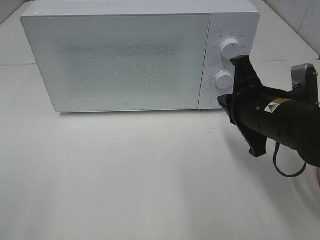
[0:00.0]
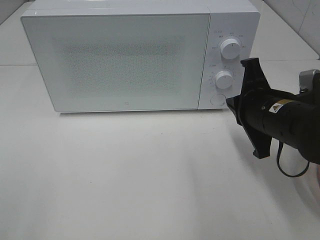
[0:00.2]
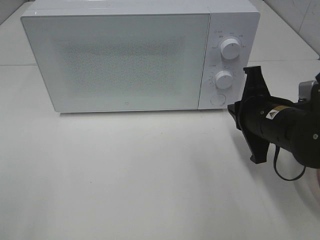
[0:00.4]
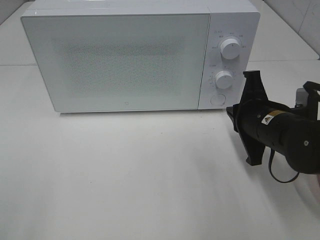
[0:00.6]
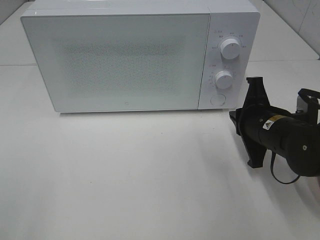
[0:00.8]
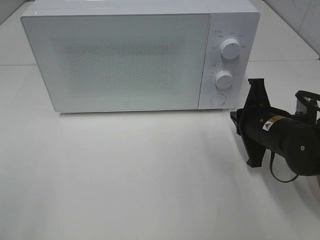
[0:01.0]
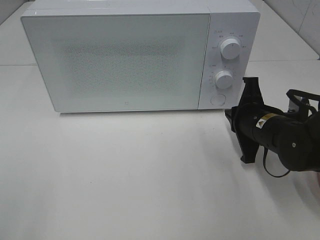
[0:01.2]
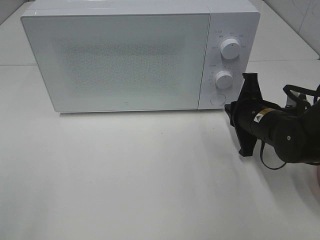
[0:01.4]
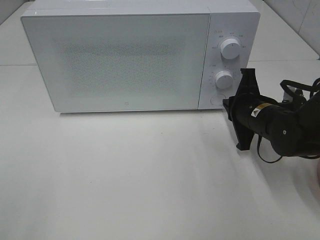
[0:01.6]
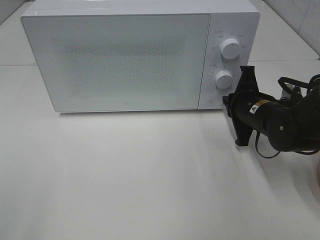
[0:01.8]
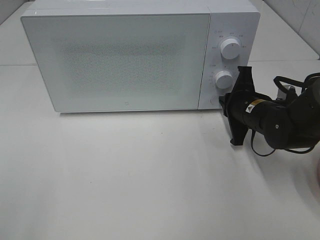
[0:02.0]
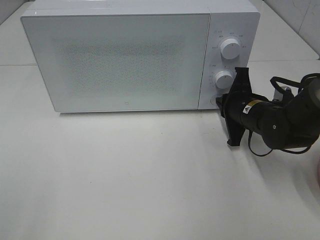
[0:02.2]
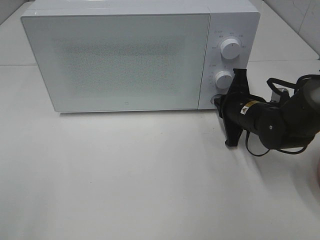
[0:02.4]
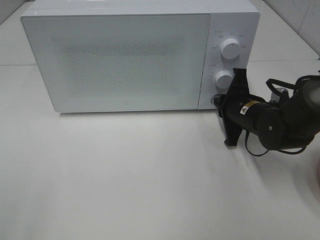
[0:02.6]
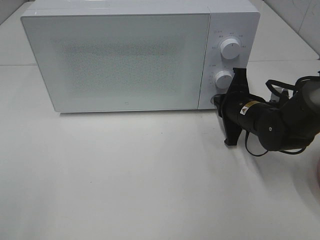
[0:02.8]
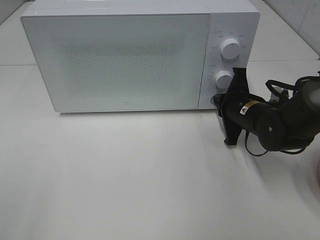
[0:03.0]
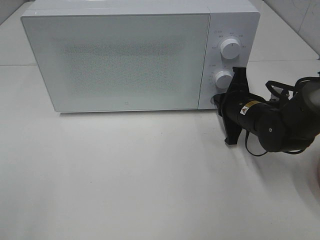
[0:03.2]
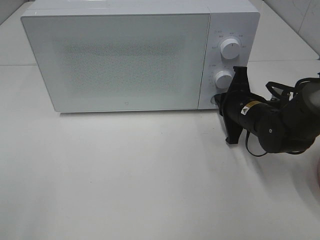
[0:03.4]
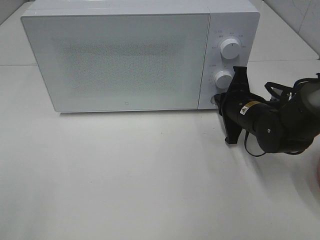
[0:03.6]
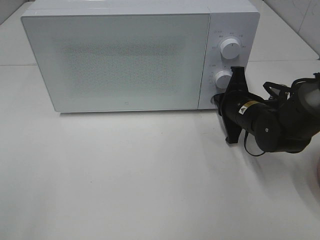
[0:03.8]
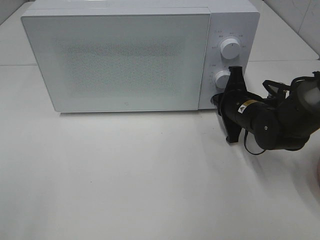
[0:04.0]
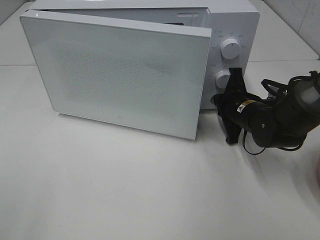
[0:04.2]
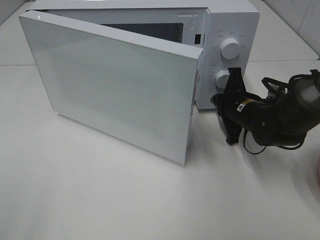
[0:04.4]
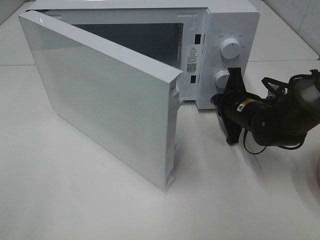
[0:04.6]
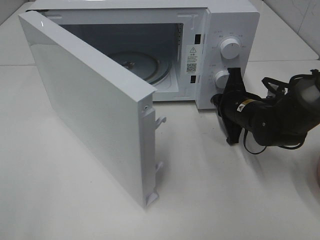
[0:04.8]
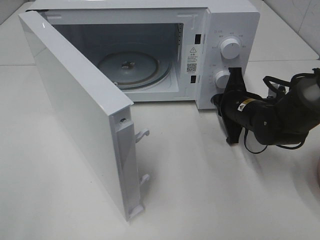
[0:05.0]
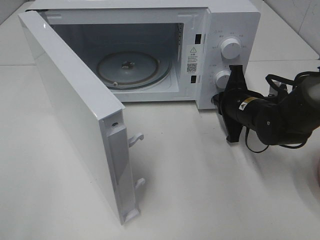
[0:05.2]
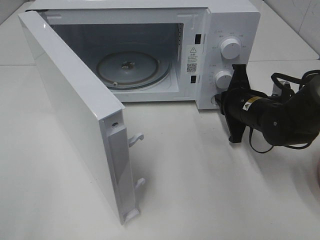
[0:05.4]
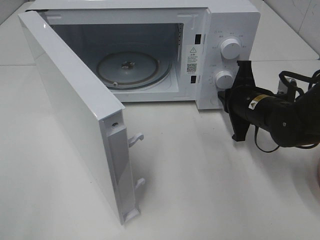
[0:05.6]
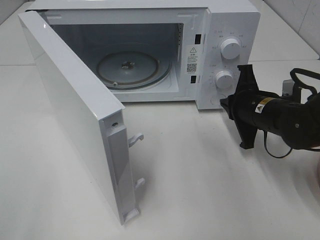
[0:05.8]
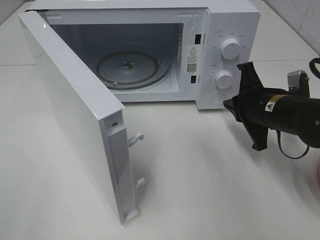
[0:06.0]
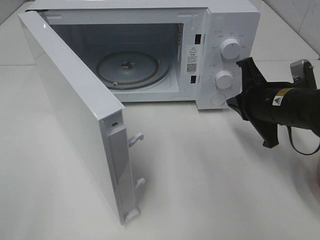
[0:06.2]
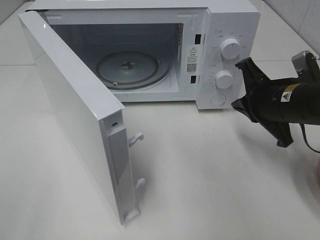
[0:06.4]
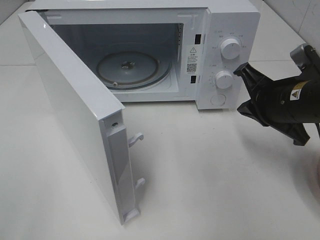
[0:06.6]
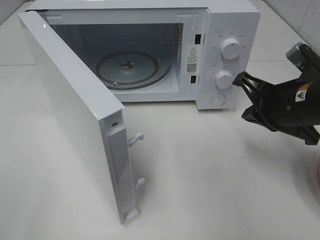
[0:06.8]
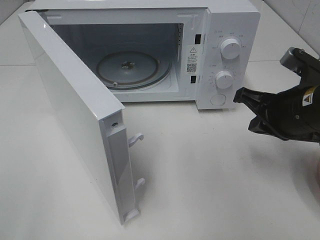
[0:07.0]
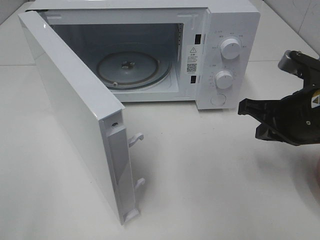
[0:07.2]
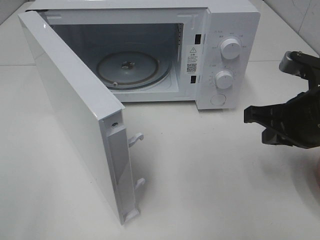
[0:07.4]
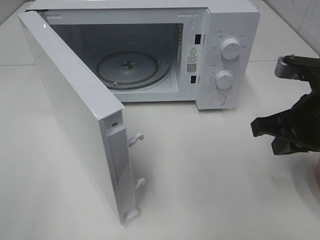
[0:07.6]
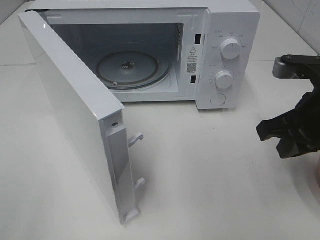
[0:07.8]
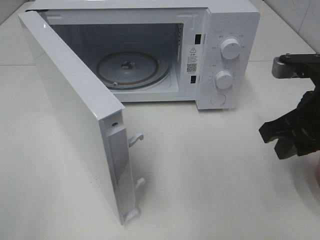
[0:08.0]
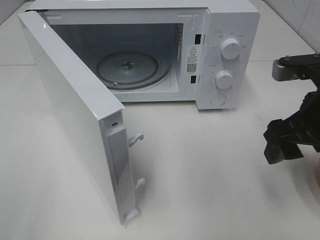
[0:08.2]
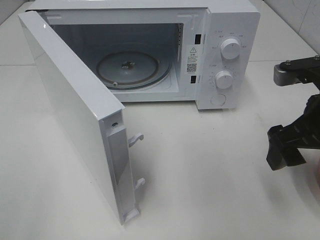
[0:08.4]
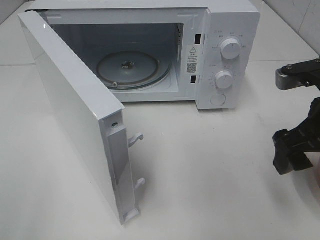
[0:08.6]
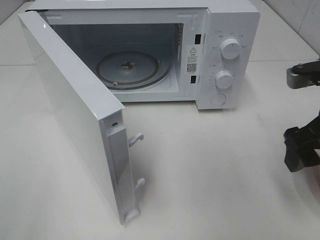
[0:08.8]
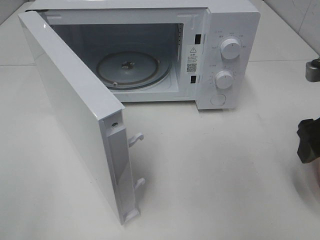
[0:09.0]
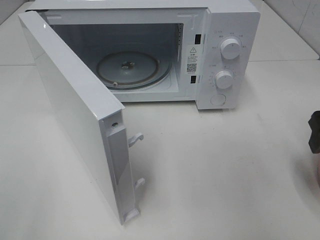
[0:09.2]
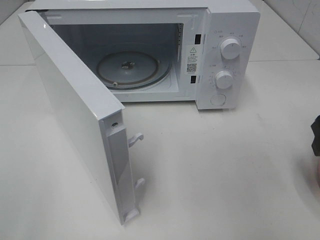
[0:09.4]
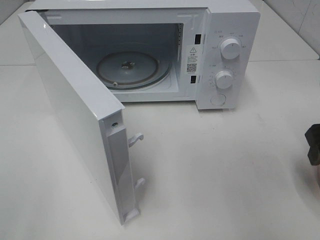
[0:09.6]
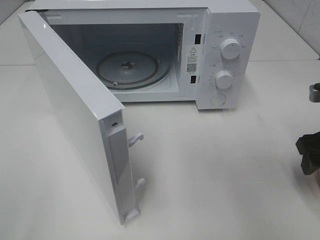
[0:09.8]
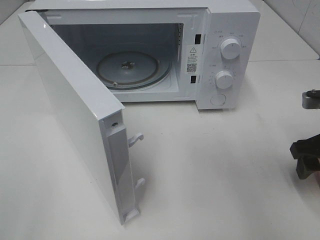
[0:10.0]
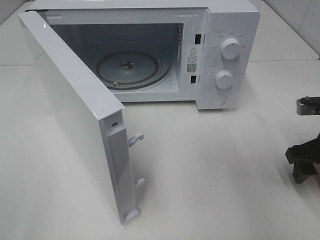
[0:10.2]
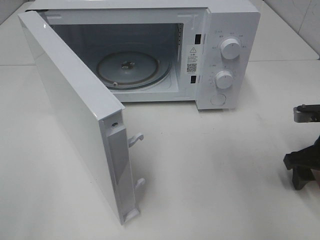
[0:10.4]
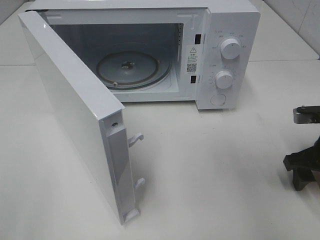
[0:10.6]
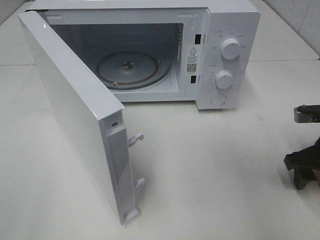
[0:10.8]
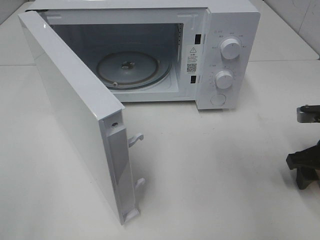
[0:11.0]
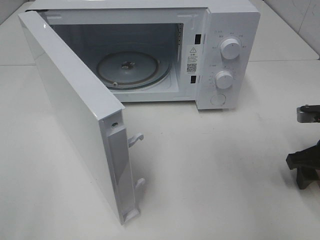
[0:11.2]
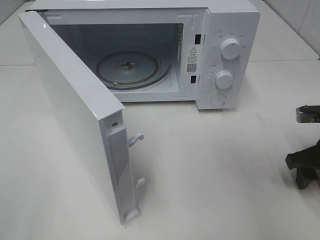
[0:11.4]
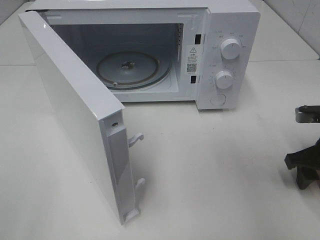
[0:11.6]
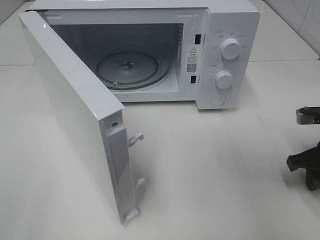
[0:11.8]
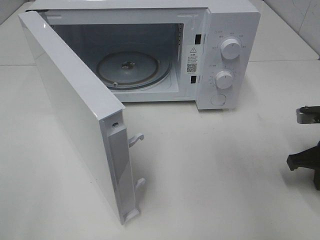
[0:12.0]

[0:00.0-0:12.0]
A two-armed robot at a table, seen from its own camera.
Task of the whole recording: Heat the burger.
Step, 0:00.0 to 0:05.6: Right hand: press the switch.
0:00.0 to 0:01.6: The right gripper shifts roughly 10 cm forward and downward.
0:01.6 to 0:04.4: The grippers make only small movements.
0:04.4 to 0:06.0: The right gripper travels backward and upward by about 10 cm.
0:06.0 to 0:07.6: The right gripper goes about 10 cm upward and backward.
0:07.6 to 0:09.0: The right gripper shifts roughly 5 cm to the right, and opens up.
0:09.0 to 0:10.4: The right gripper moves downward, approximately 10 cm.
0:10.4 to 0:12.0: The right gripper closes.

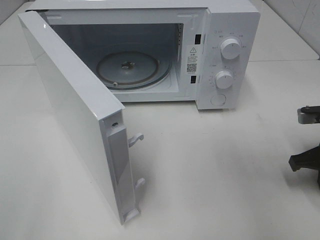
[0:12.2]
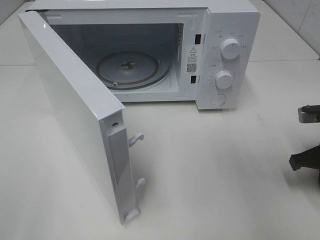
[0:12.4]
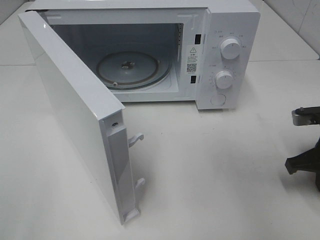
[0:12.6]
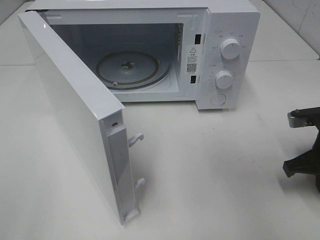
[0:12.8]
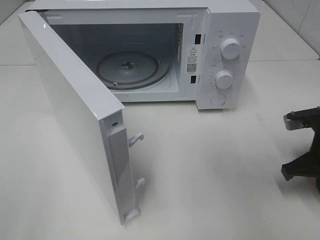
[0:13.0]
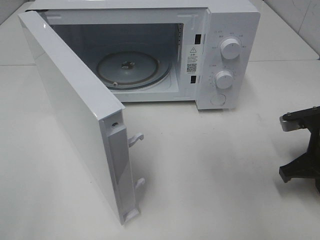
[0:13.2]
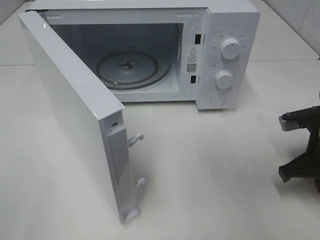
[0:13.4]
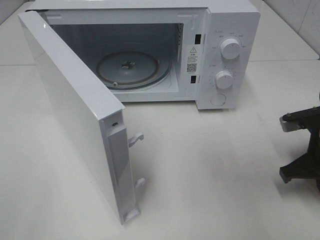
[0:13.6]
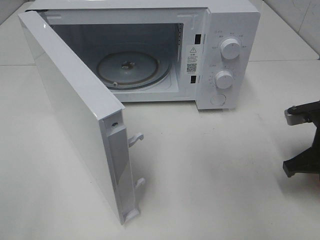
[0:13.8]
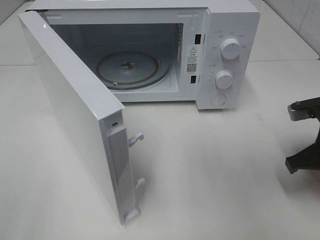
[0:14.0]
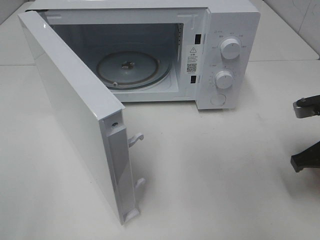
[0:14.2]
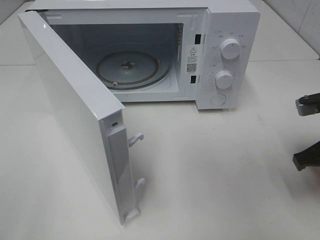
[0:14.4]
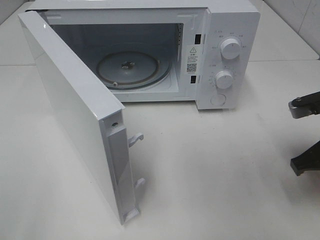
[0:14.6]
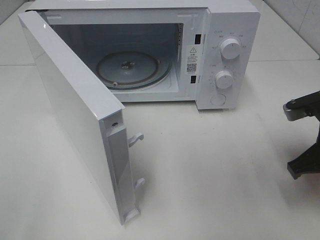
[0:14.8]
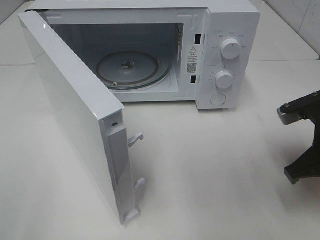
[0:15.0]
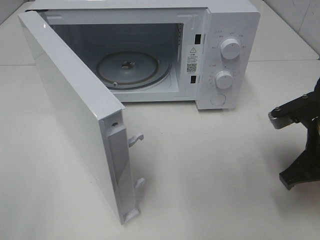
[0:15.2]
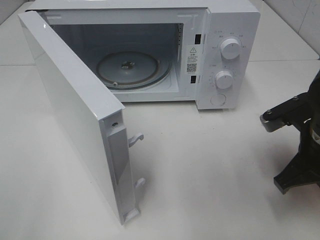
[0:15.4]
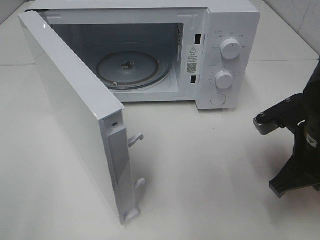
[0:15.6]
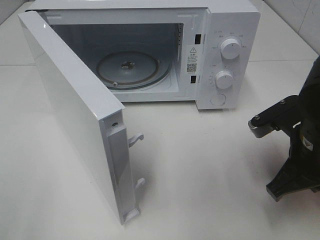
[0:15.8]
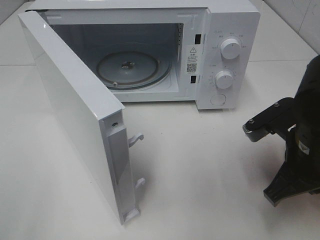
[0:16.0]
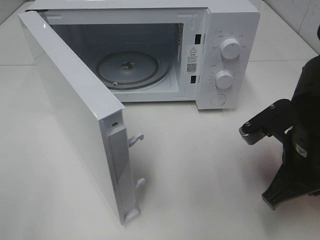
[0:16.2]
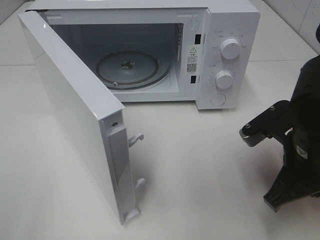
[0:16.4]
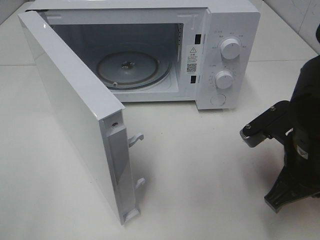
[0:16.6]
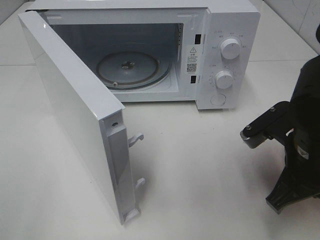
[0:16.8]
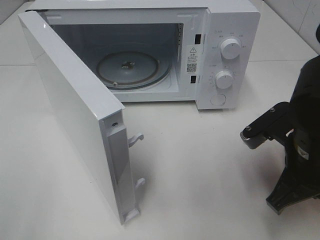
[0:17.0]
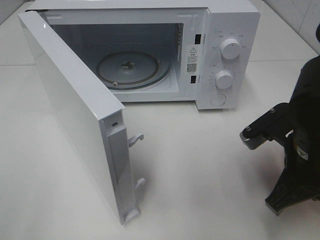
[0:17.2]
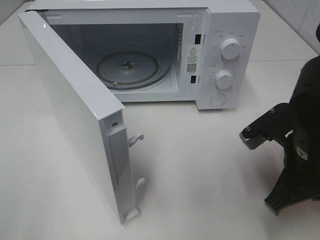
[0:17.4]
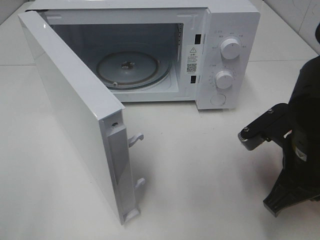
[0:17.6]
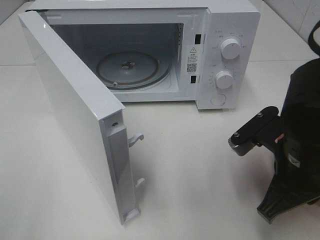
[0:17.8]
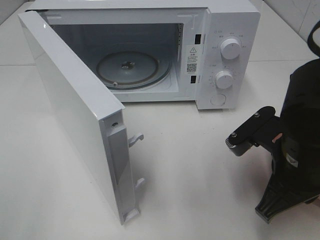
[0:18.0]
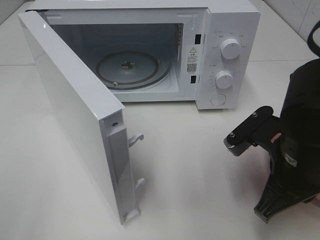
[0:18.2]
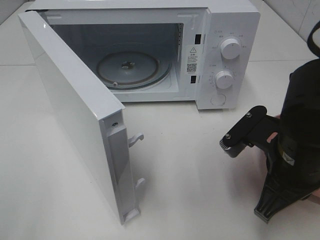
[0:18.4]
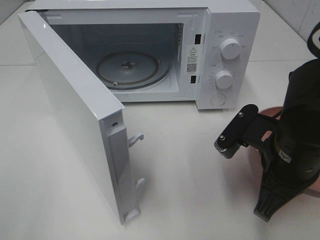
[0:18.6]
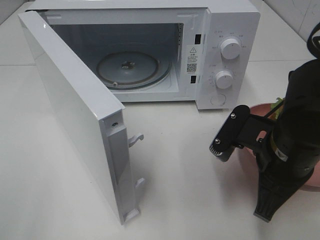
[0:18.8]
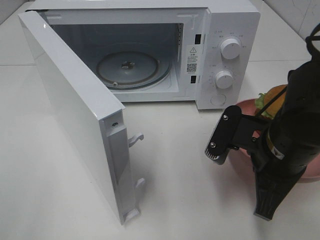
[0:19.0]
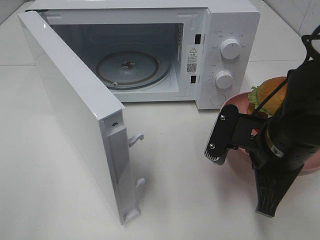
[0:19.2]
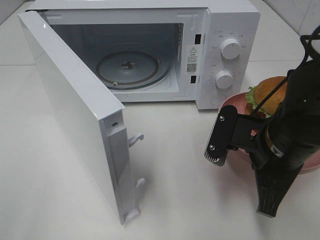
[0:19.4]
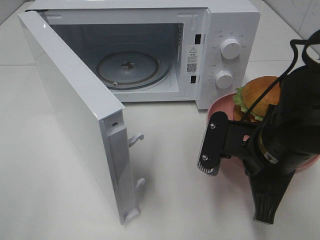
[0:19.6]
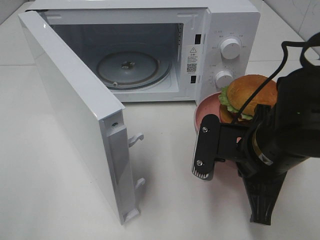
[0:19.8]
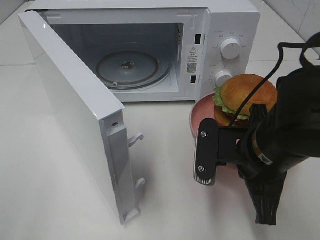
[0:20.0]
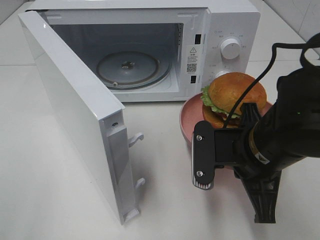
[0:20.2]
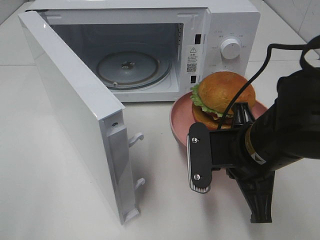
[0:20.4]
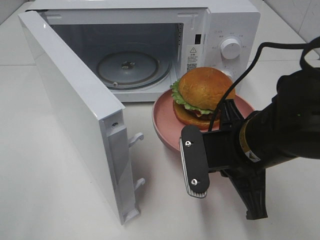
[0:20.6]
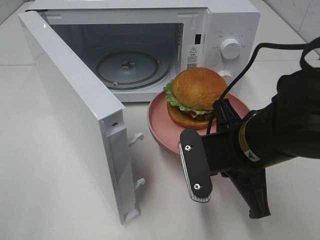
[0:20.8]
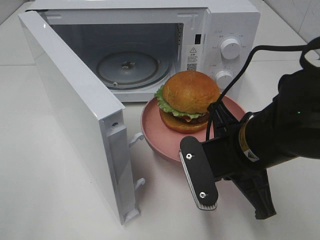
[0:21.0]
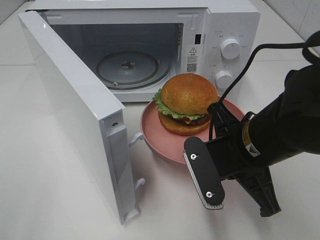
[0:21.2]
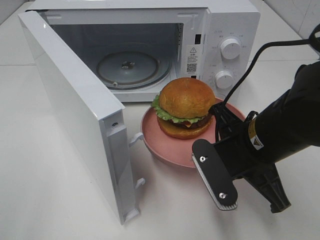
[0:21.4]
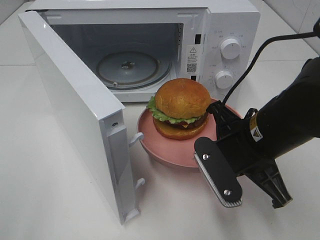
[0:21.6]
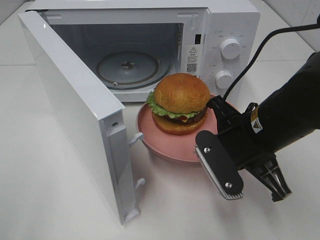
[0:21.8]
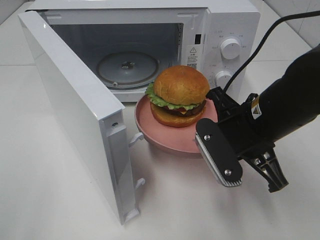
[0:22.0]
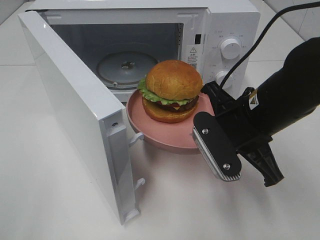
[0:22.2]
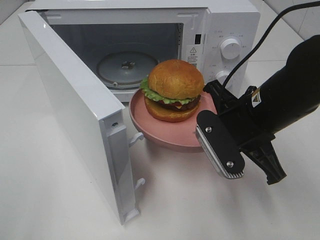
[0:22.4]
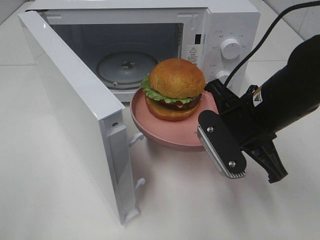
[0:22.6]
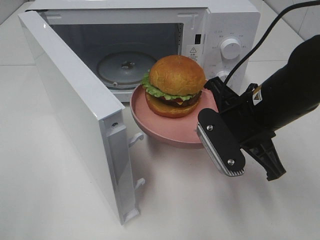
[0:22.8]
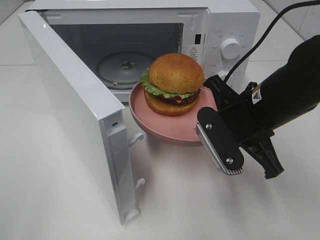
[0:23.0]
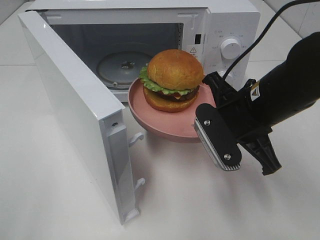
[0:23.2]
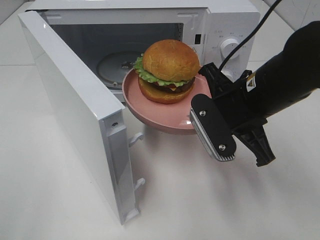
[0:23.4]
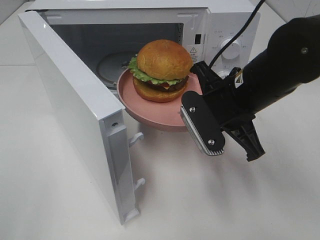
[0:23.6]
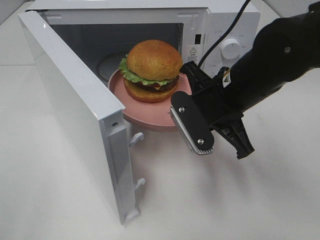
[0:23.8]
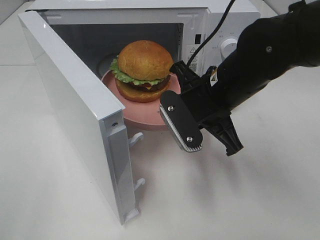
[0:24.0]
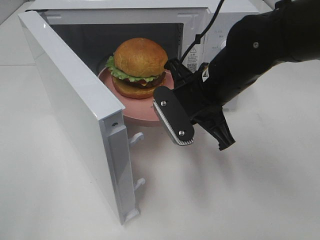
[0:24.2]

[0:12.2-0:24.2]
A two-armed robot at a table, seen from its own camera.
Task of the whole recording: Heat the burger.
0:12.2 to 0:13.8: The grippers stay close to where they were, moving slightly.
0:13.8 to 0:15.2: The right gripper changes place by some 5 cm.
0:15.2 to 0:16.6: The grippers move only a little.
0:16.6 to 0:18.2: The grippers make only small movements.
0:22.6 to 0:24.2: The right gripper goes about 5 cm to the left.
